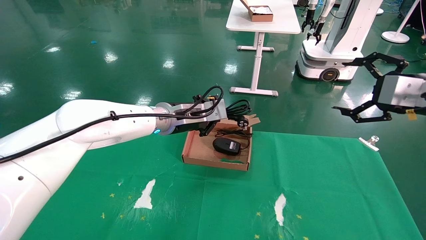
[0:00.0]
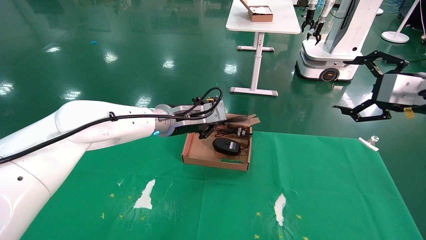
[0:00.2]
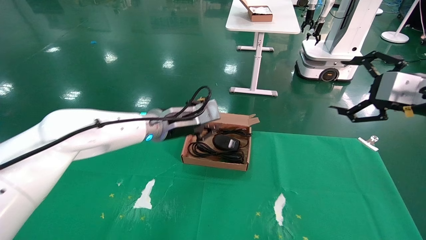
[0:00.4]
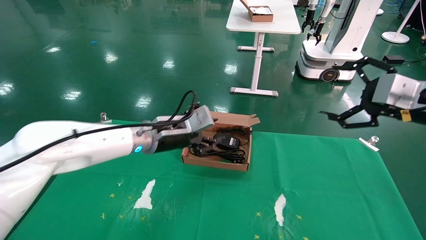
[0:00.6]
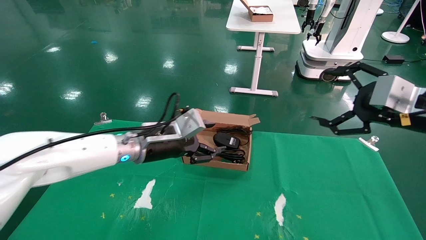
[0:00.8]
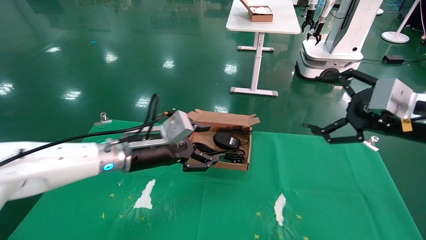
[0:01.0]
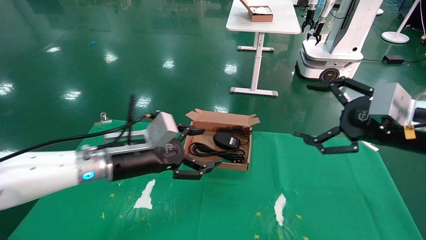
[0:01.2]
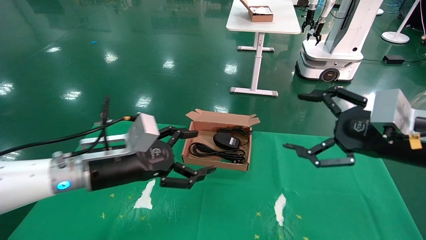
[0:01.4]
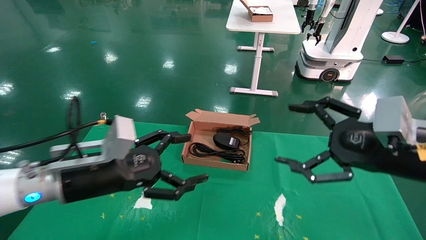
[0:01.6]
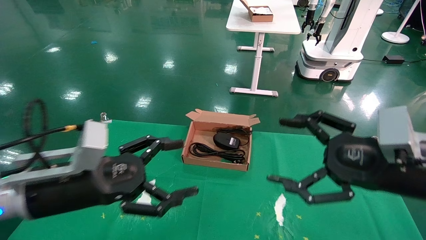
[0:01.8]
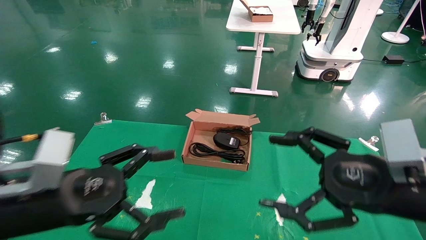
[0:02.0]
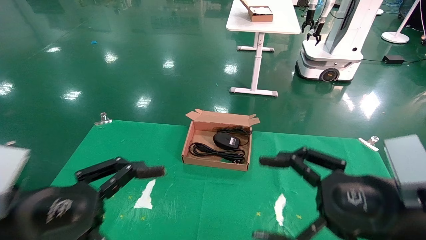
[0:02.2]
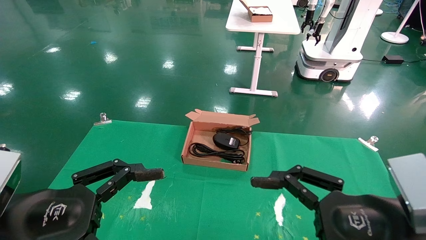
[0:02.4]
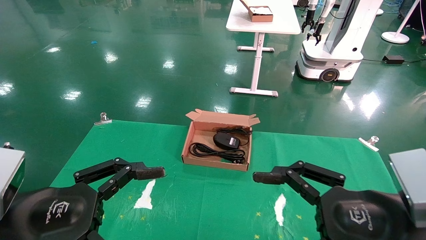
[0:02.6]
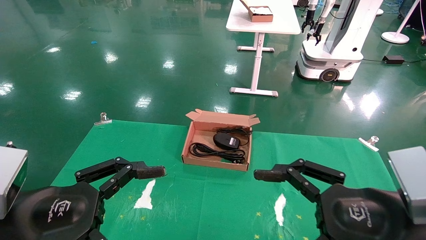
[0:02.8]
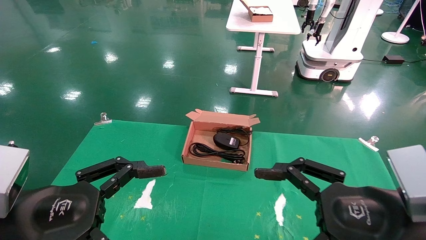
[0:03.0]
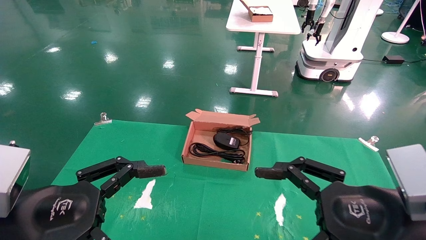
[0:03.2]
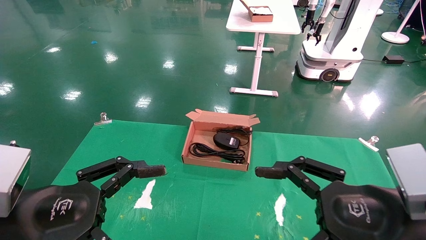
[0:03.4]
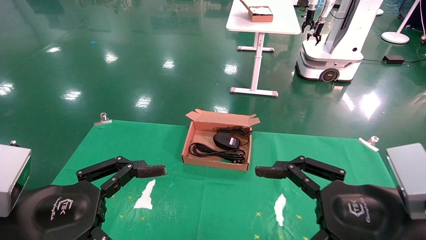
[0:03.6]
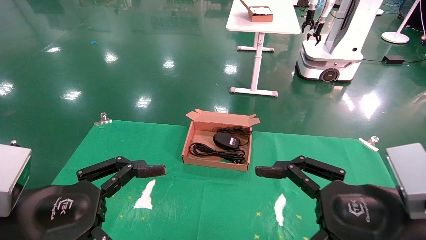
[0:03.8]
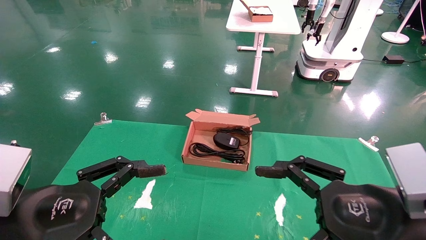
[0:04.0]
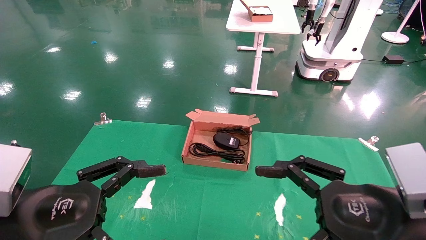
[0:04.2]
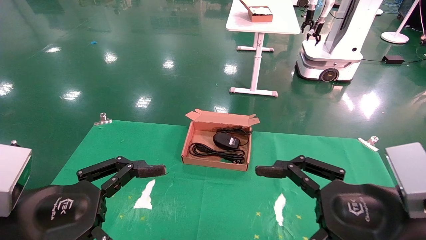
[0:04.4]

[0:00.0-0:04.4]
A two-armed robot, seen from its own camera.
0:00.0 to 0:01.4: The right gripper is displaced to the left, downward and backward by about 10 cm. The left gripper moves backward, to the left and downward, approximately 20 cm, and opens up.
0:01.4 to 0:03.0: The left gripper travels backward and to the left by roughly 15 cm. Meanwhile the right gripper shifts roughly 10 cm backward, to the left and downward.
0:03.0 to 0:04.4: Neither gripper changes place.

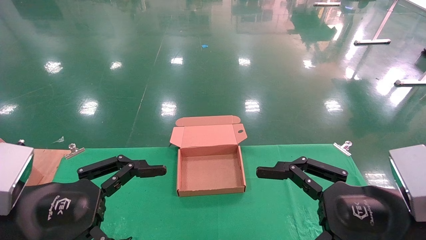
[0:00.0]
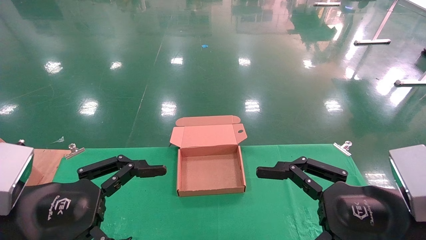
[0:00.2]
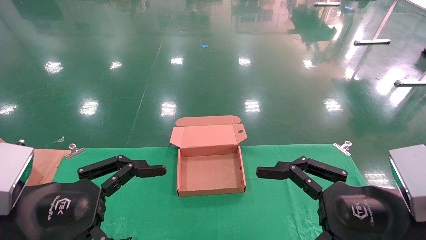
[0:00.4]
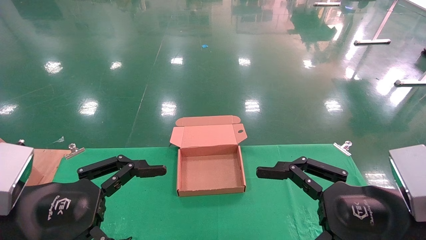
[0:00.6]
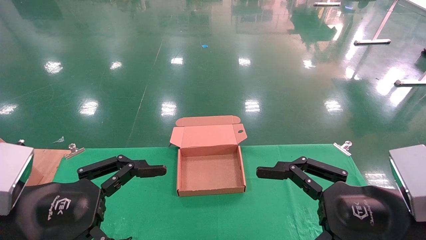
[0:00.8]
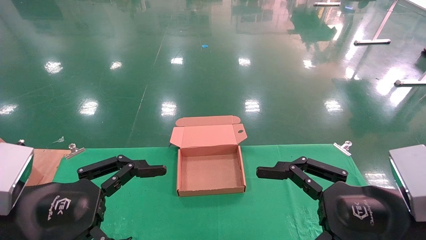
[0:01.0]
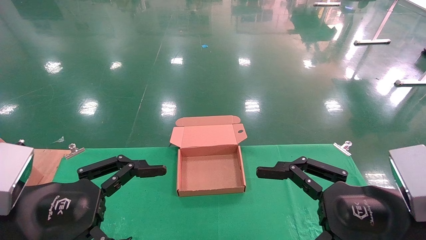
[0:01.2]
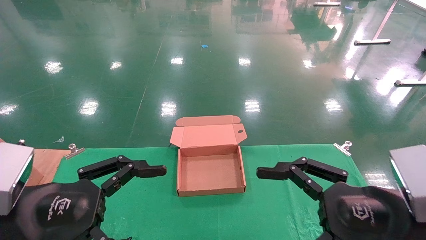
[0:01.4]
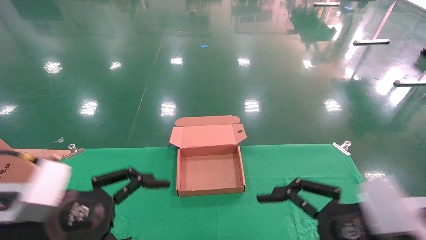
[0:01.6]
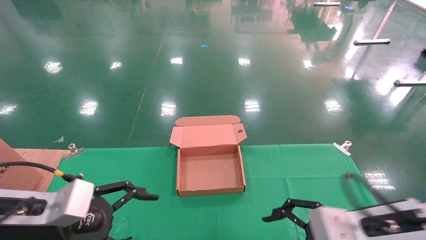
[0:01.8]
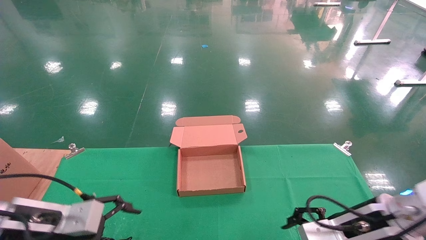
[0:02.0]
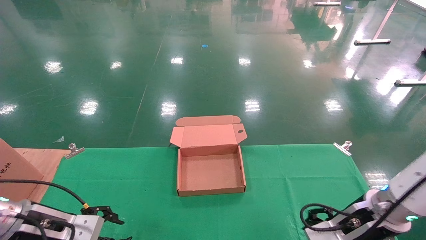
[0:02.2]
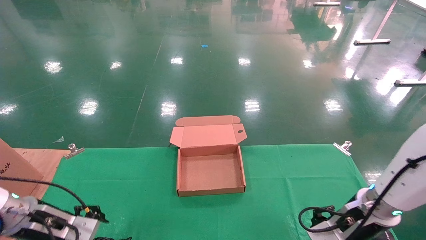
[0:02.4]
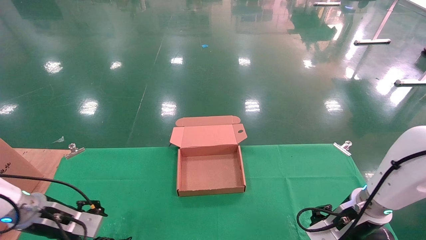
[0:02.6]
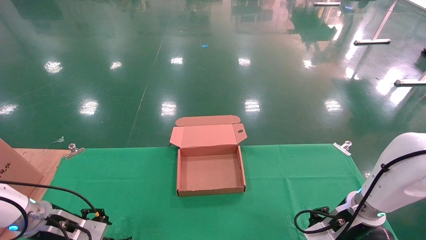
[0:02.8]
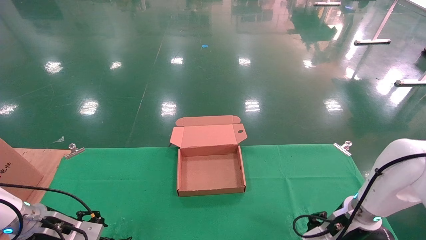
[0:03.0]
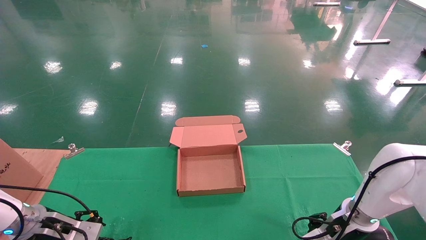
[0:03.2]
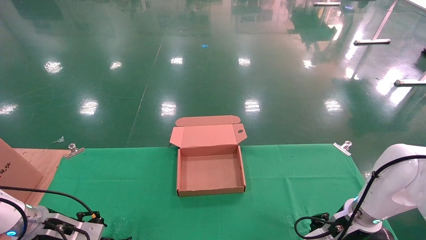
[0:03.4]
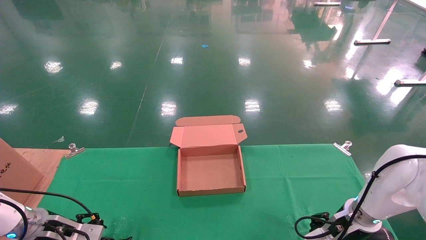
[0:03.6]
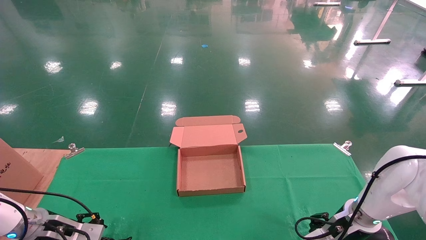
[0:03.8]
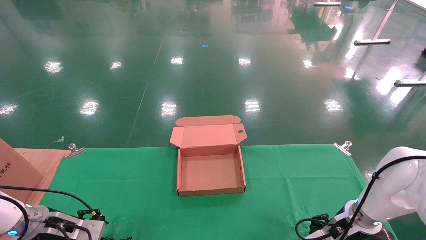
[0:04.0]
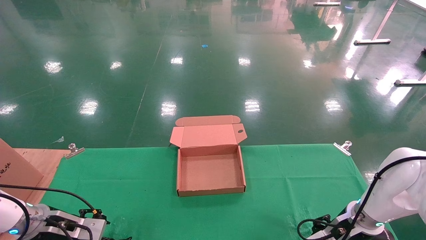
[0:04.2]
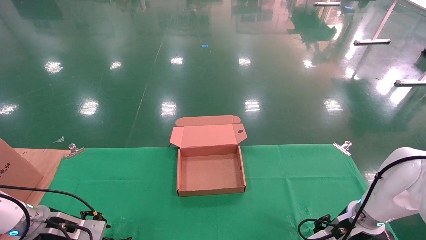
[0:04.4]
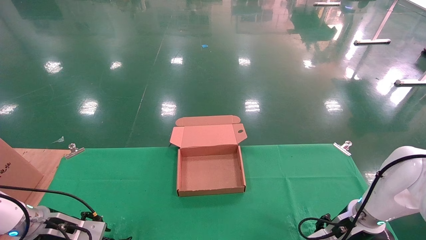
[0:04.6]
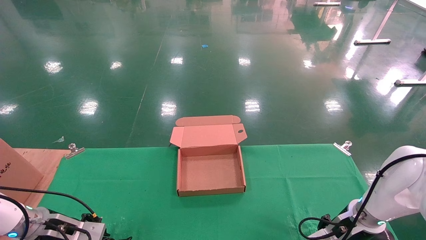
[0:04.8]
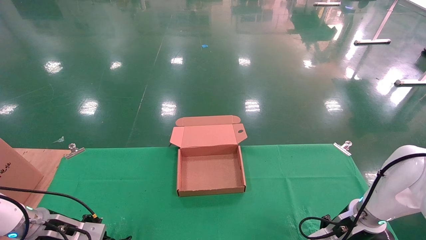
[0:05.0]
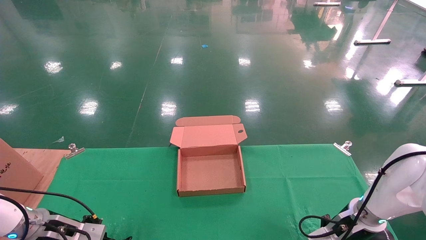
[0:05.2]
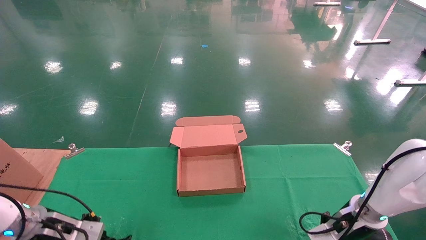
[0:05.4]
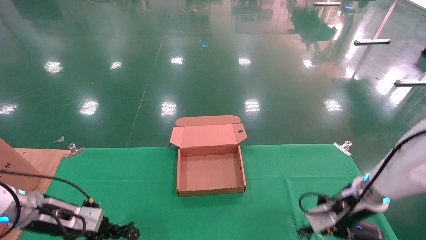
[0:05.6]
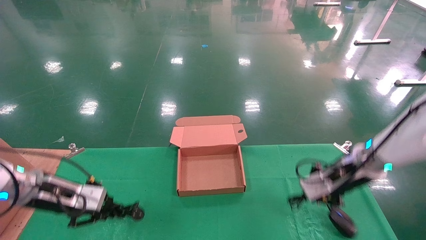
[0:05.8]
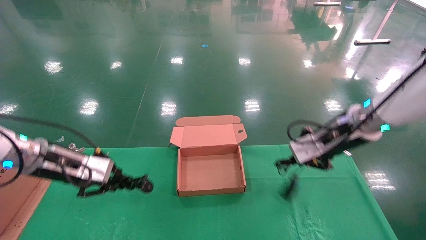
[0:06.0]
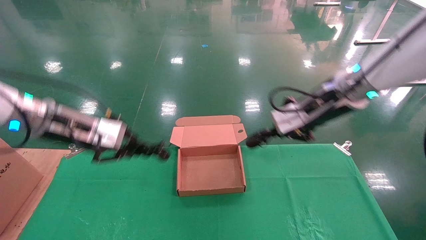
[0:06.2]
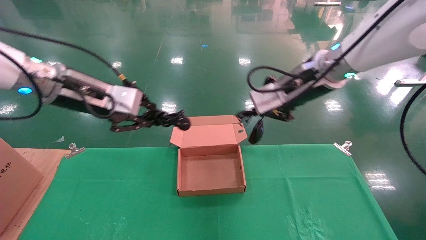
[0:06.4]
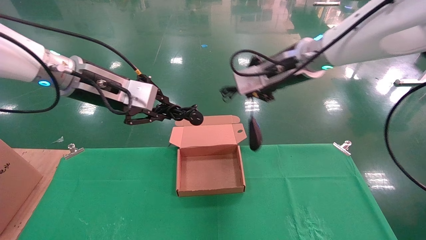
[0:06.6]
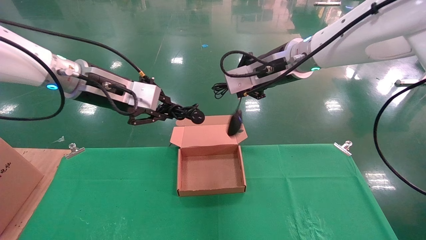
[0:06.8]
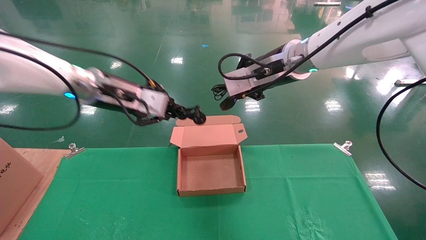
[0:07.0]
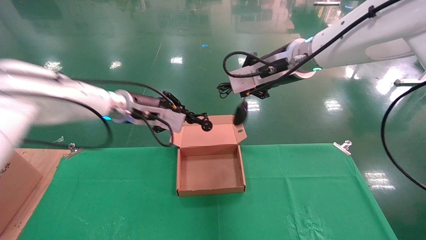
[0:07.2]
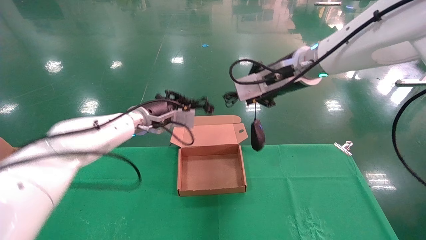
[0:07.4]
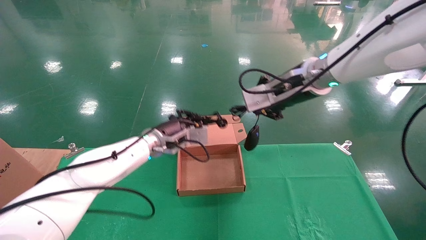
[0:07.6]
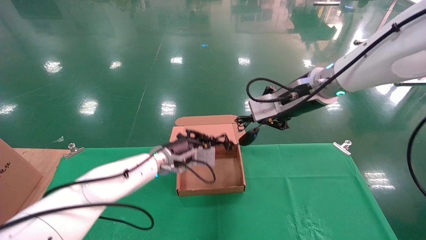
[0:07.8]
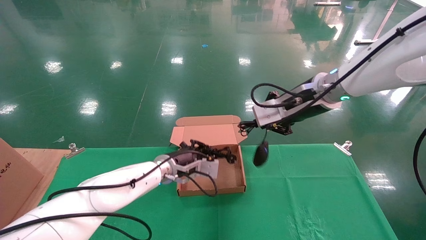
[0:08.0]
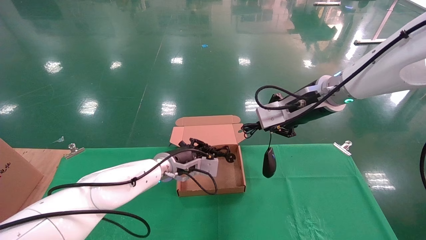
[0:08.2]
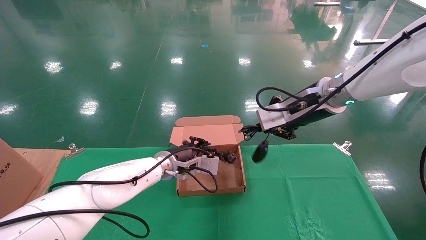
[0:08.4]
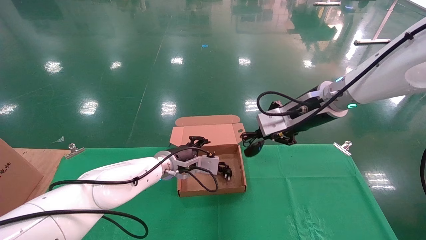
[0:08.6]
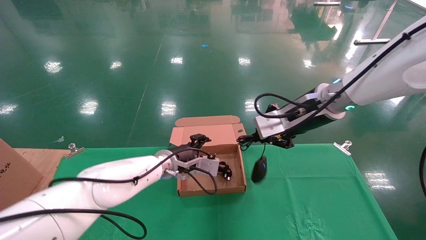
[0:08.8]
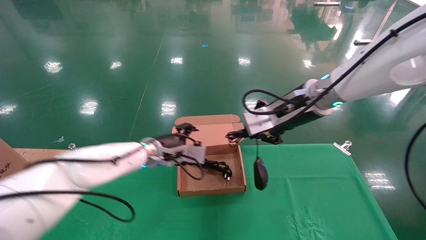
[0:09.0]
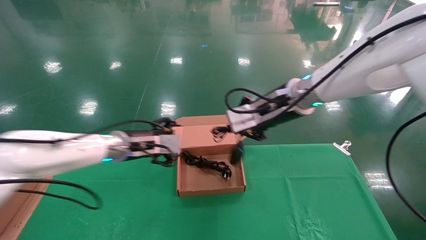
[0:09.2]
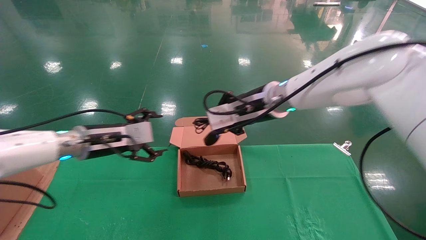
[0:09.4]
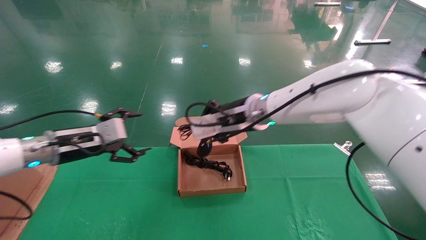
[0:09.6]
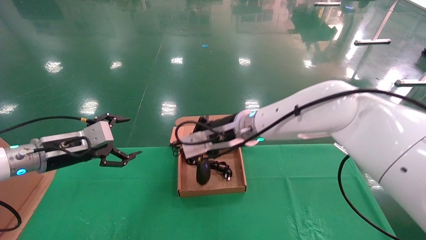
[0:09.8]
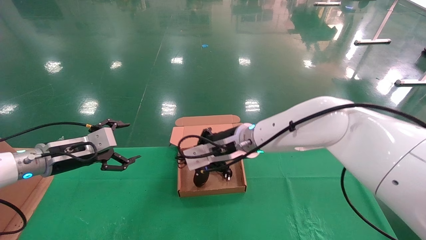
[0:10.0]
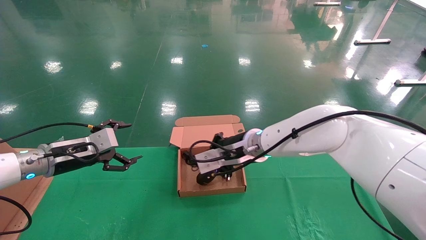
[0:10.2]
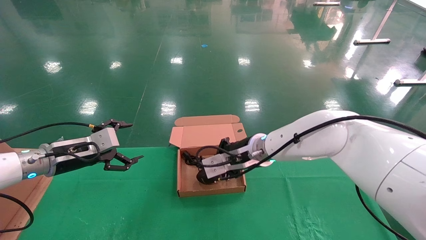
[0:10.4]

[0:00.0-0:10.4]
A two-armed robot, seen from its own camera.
Step, 0:01.6 to 0:05.0: Grab and lift both the mouse and power cord from the accessory packaging area at the same time.
0:01.4 to 0:03.0: The right gripper shifts about 25 cm forward and downward, while the left gripper moves forward, downward and to the left, some 25 cm.
0:03.0 to 0:04.4: The grippers move only a little.
0:04.4 to 0:06.0: Both grippers move upward, some 20 cm. The right gripper closes up. Meanwhile the left gripper closes up.
0:06.0 to 0:07.4: The left gripper shifts approximately 20 cm to the right and forward, while the right gripper moves upward and to the left, some 15 cm.
0:07.4 to 0:09.0: The two grippers go roughly 5 cm downward. The left gripper opens.
0:09.0 to 0:10.4: The right gripper is displaced downward and to the left by some 15 cm, while the left gripper travels to the left by roughly 20 cm, and opens its fingers.

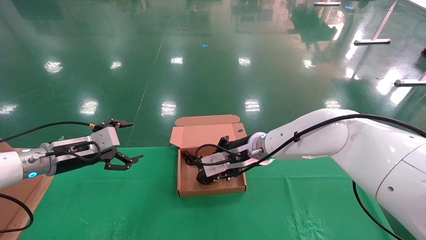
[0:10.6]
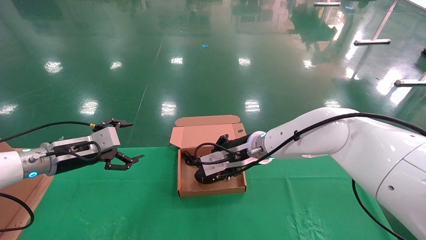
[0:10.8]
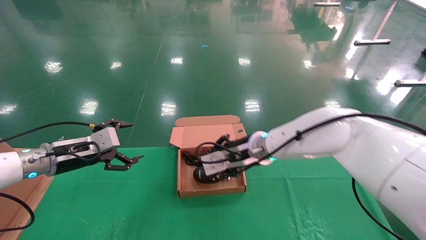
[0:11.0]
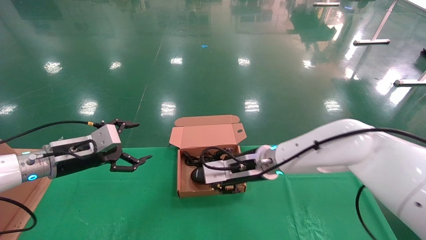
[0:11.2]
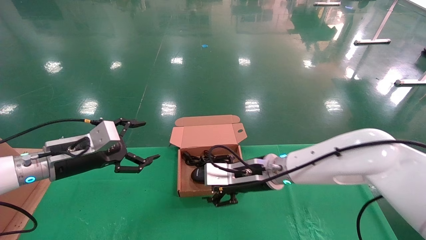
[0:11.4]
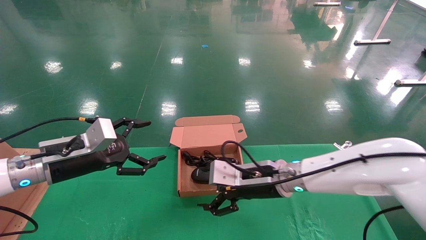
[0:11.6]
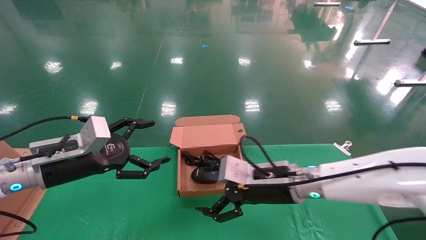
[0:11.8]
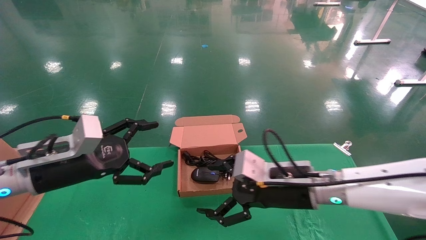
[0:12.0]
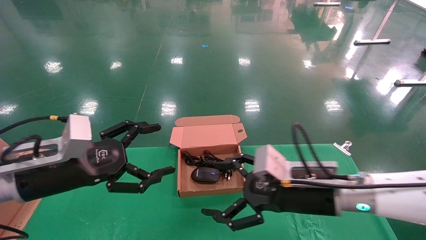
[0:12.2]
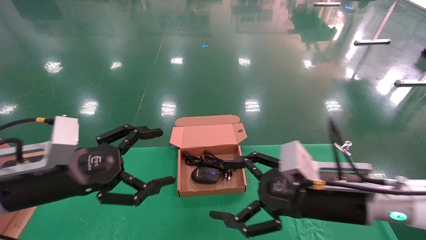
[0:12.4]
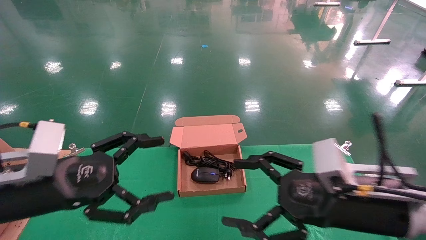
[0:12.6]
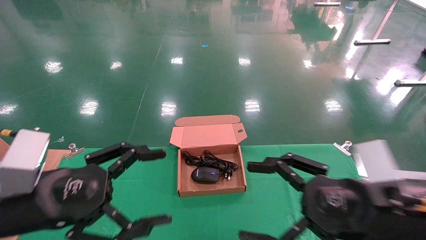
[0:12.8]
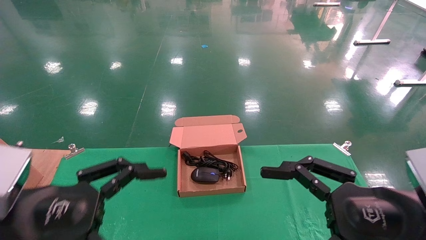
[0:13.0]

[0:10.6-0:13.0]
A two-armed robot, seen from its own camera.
0:10.6 to 0:11.8: The grippers both shift backward and to the right by about 10 cm. The right gripper opens.
0:11.8 to 0:13.0: The right gripper goes roughly 20 cm backward and to the right. Meanwhile the left gripper goes roughly 15 cm backward.
